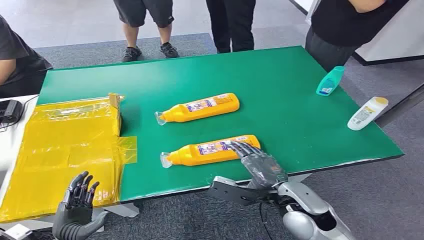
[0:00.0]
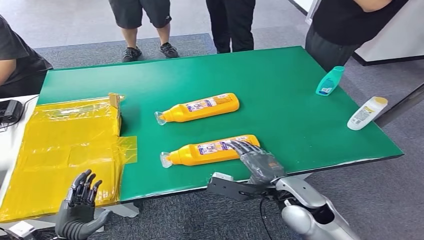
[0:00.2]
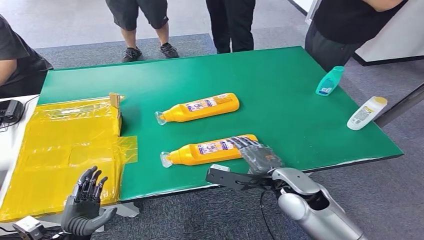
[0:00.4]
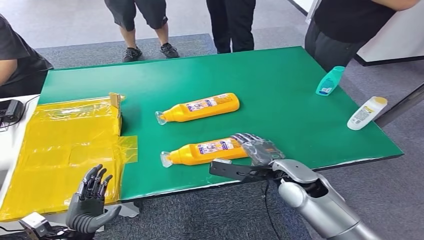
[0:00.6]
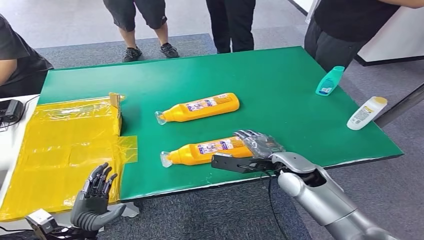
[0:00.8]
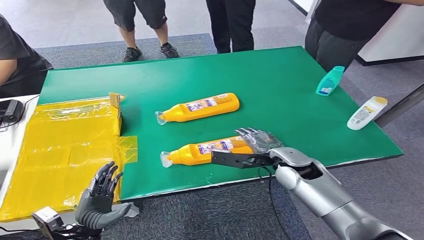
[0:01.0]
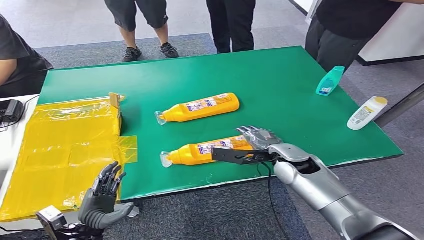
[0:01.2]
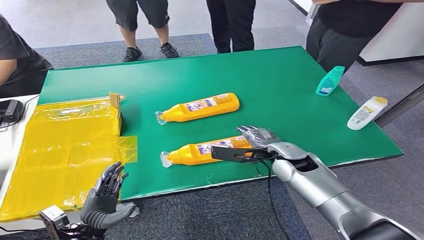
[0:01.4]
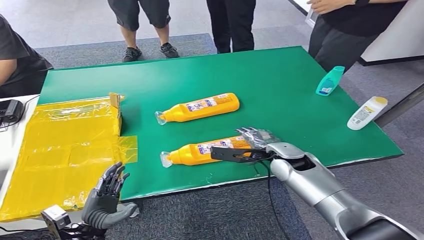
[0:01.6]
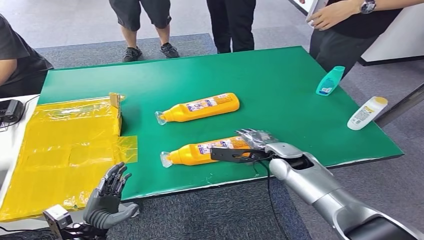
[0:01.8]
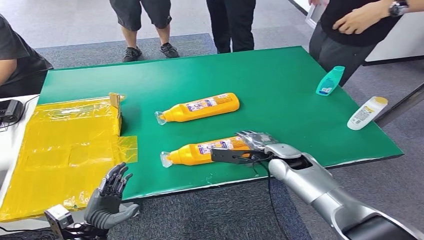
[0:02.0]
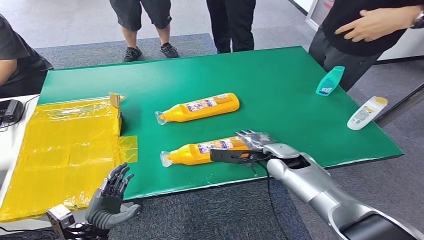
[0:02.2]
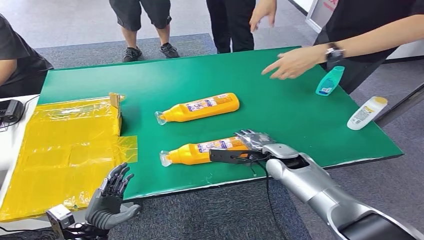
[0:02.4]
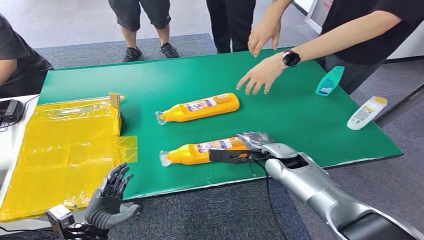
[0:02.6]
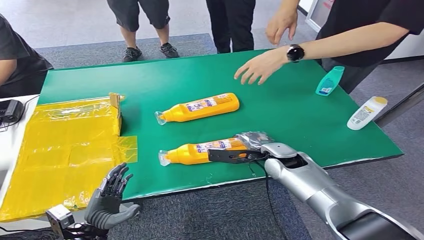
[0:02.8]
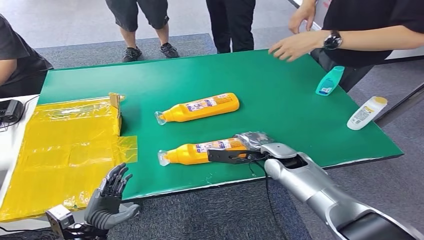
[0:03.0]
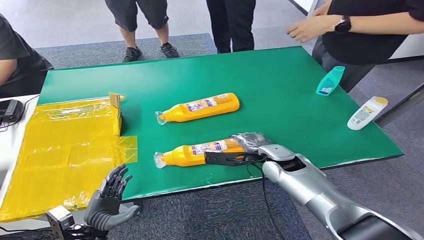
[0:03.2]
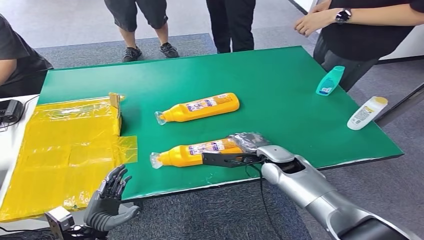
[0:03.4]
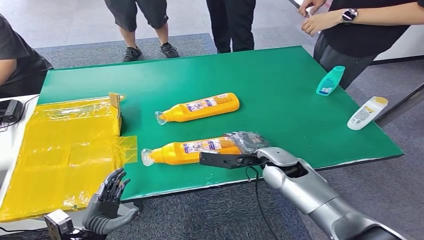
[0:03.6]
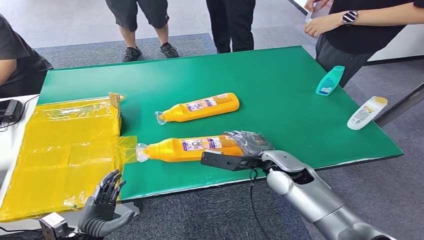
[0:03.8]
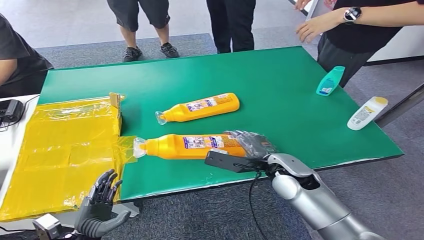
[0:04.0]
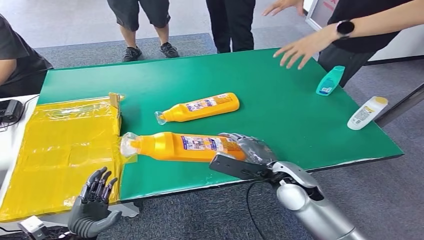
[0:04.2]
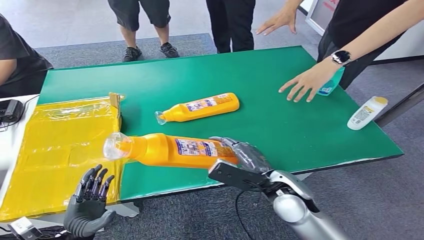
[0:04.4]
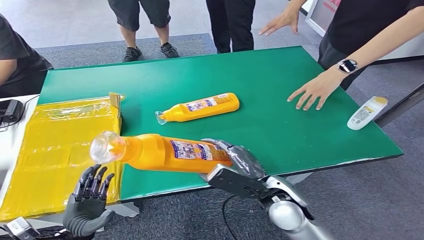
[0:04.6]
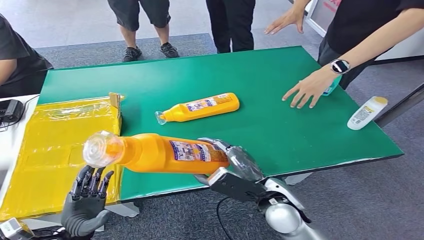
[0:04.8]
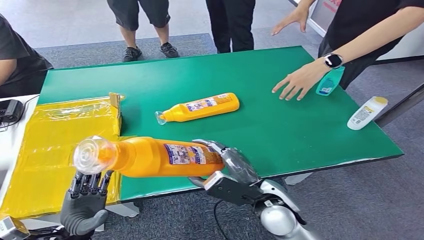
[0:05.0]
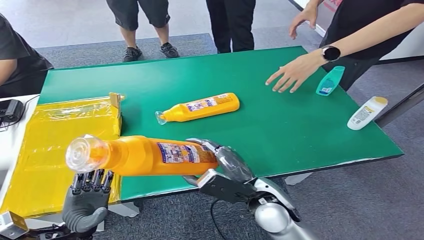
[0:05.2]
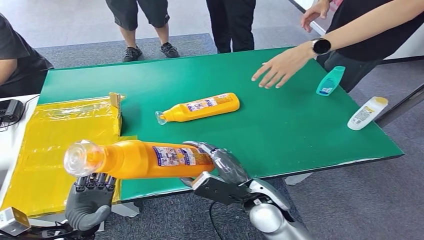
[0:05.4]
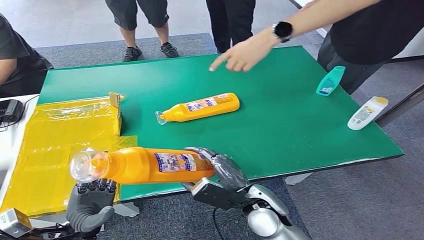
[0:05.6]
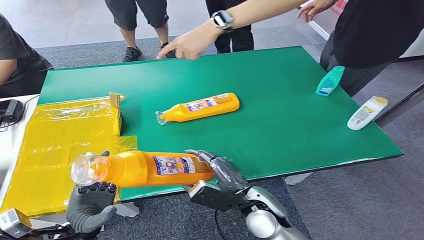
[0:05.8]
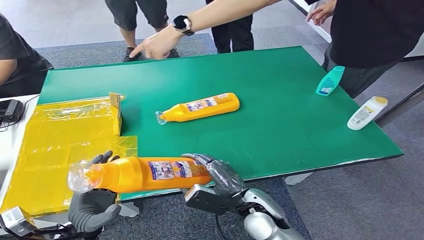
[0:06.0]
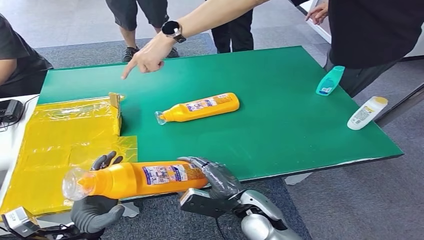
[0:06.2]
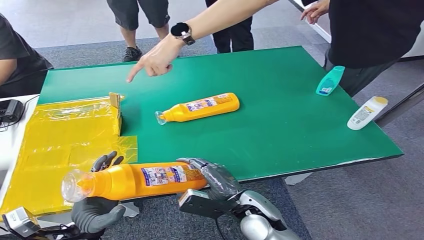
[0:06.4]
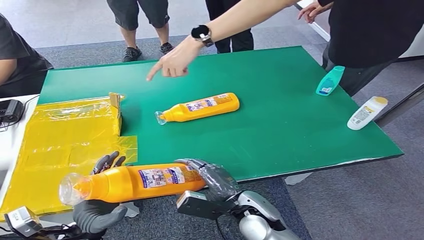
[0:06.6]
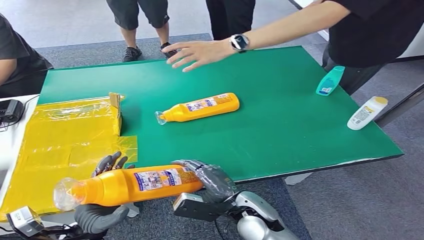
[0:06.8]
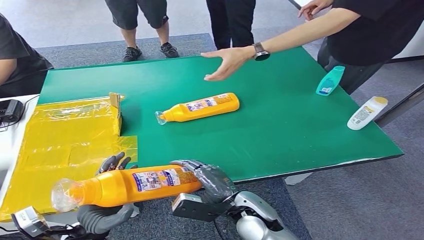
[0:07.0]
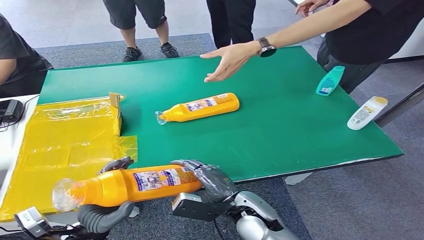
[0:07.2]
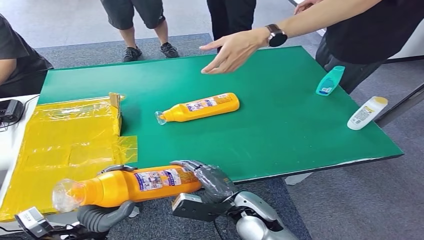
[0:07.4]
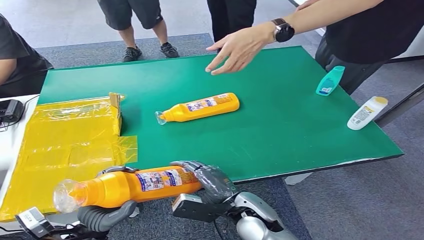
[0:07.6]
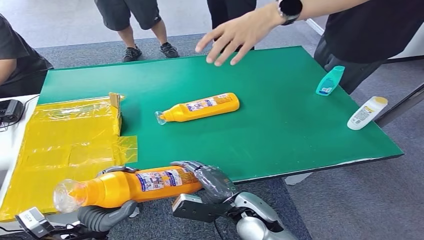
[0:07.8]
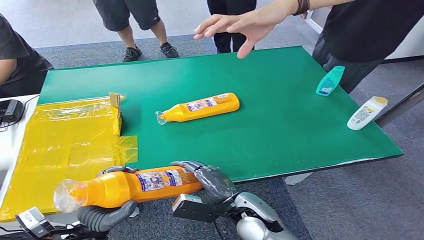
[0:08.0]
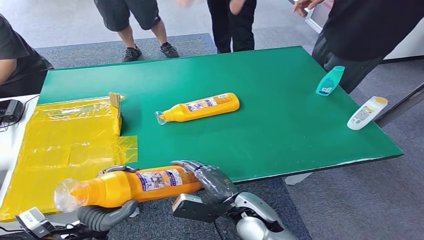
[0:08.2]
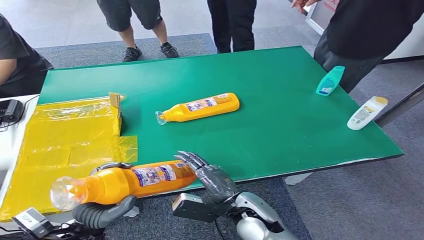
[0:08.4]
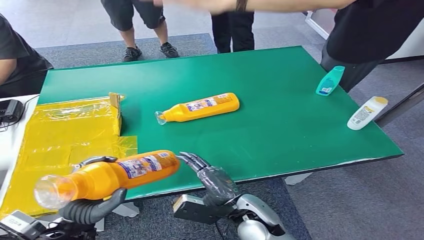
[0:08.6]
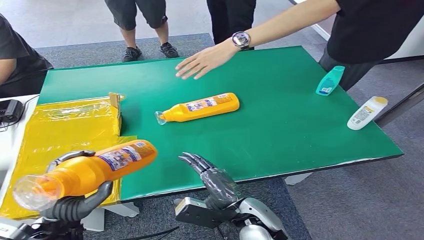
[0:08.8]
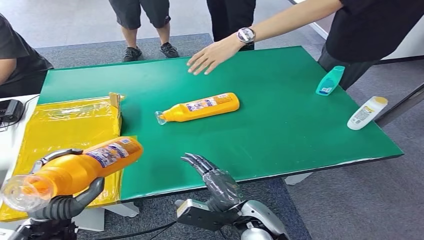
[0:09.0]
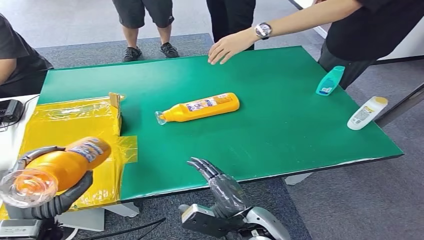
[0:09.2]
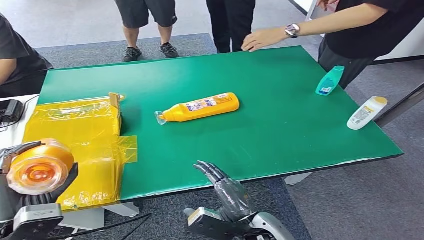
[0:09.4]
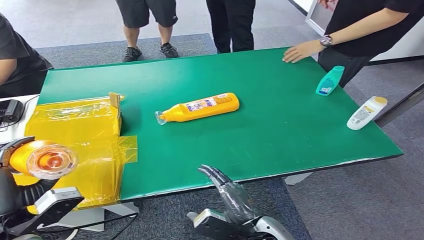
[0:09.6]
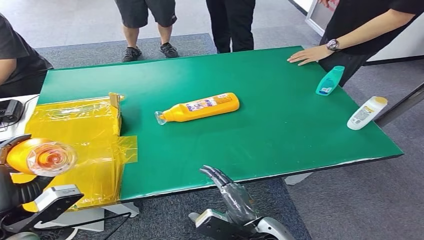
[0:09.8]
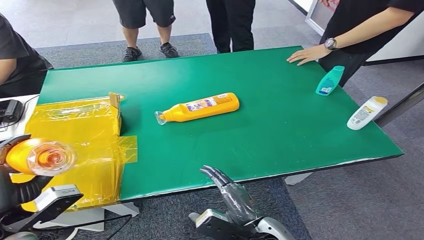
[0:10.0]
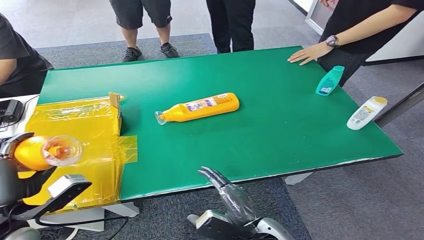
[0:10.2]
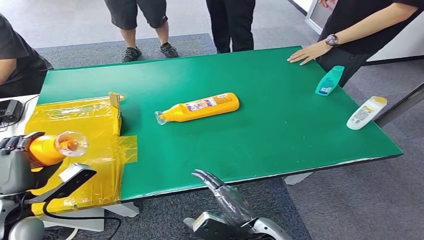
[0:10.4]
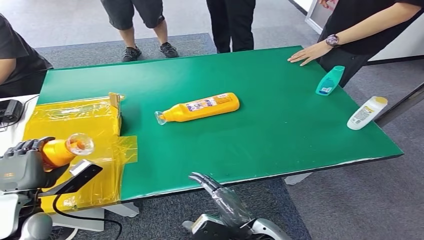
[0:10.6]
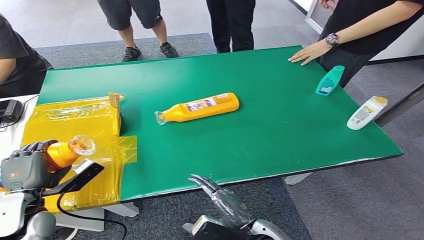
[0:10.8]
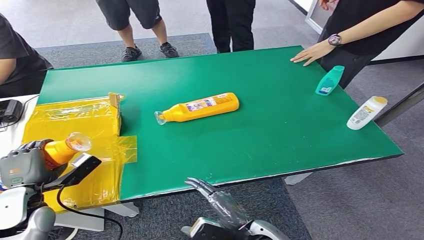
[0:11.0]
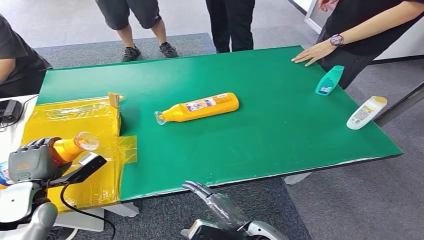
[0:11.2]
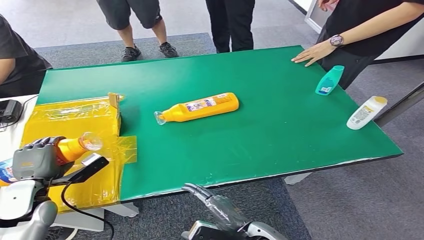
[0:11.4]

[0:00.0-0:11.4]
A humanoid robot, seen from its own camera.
Step, 0:00.0 to 0:04.4: Pick up the bottle from the table.
0:01.4 to 0:02.8: The hands make only small movements.
0:05.6 to 0:07.2: There are only small adjustments of the hands.
0:10.0 to 0:11.4: The left hand goes about 10 cm forward and downward.

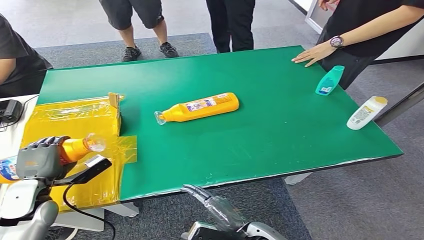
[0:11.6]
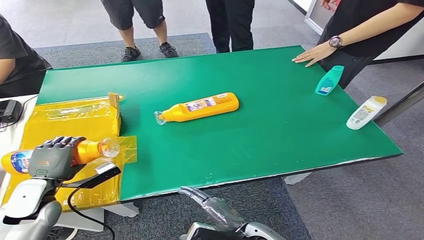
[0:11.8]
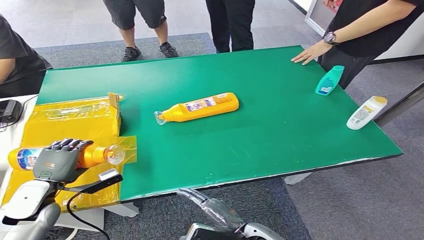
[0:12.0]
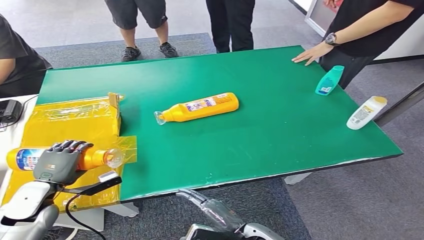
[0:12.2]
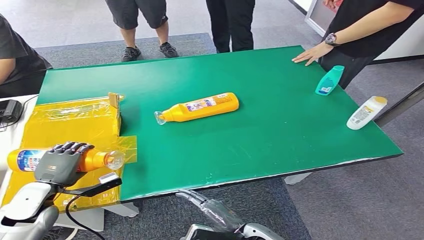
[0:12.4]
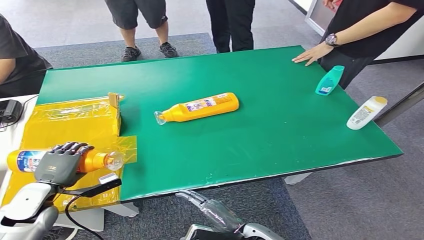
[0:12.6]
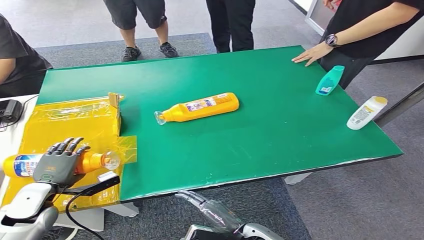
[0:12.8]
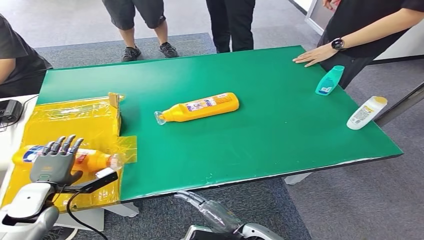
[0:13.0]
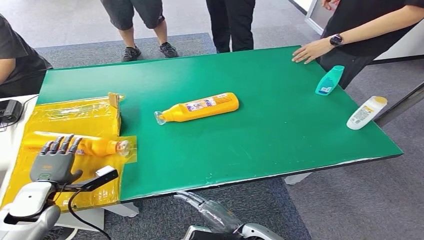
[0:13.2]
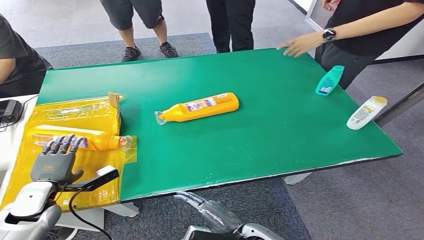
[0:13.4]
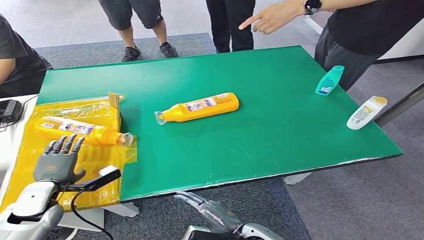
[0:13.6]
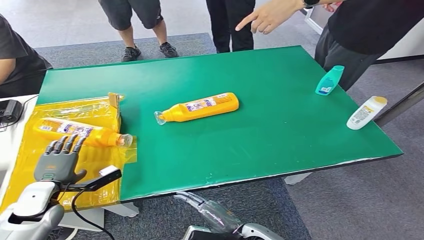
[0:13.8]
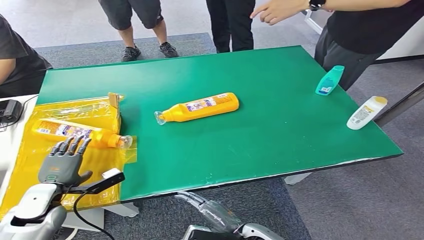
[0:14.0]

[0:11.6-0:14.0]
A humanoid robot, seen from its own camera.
Step, 0:11.6 to 0:14.0: Turn the bottle to the front side.
0:11.6 to 0:14.0: The hands stay close to where they were, moving slightly.
